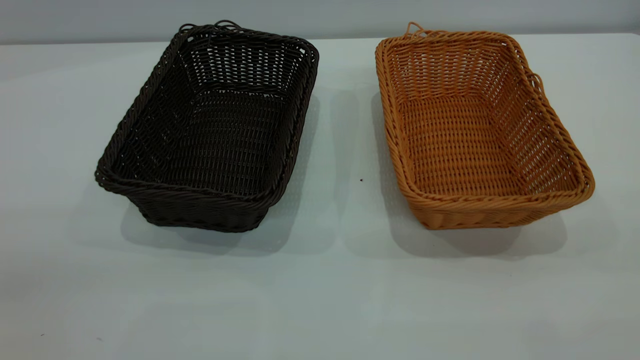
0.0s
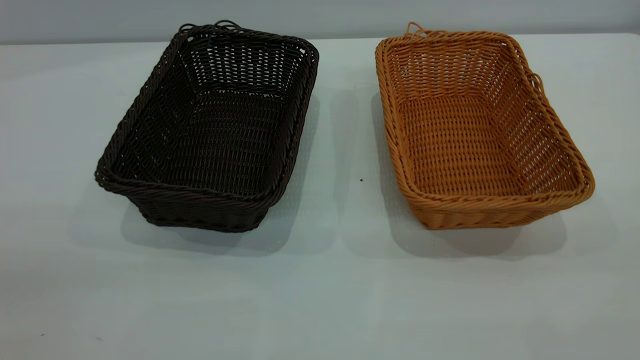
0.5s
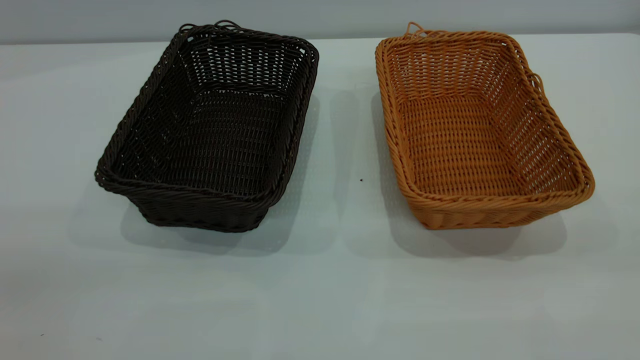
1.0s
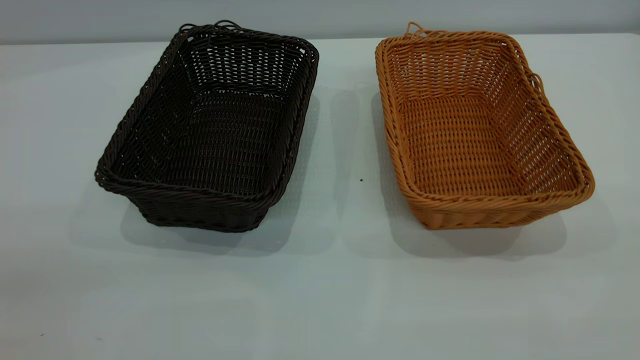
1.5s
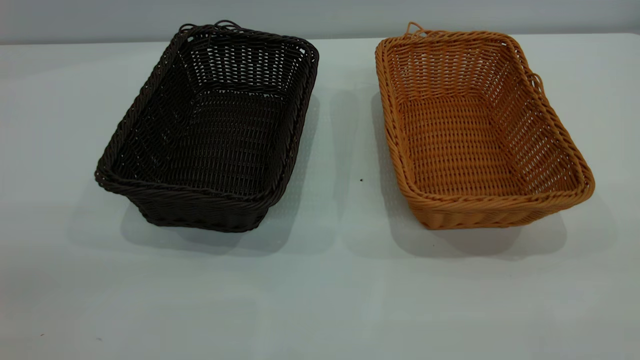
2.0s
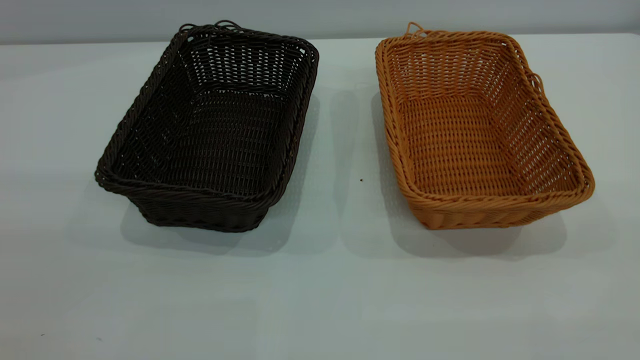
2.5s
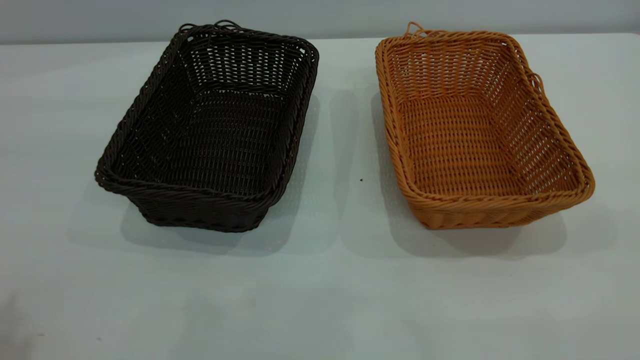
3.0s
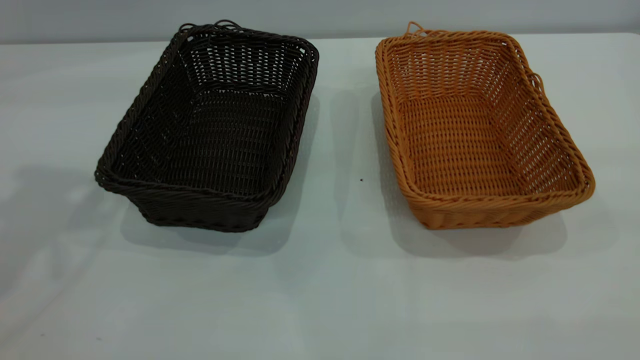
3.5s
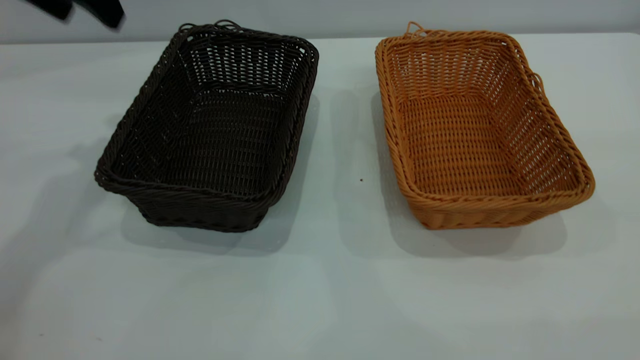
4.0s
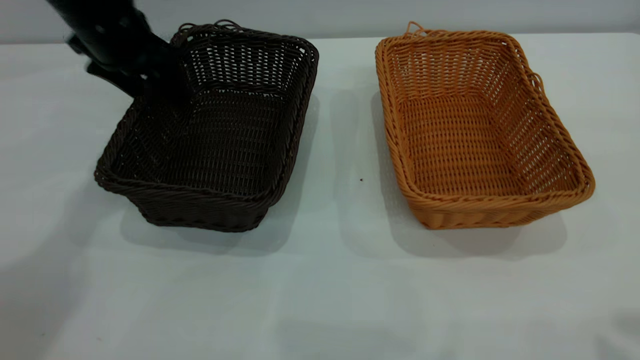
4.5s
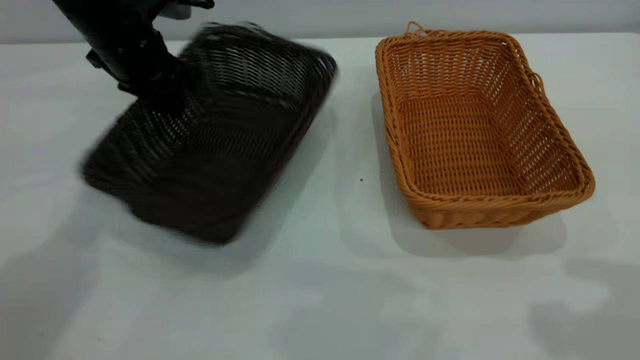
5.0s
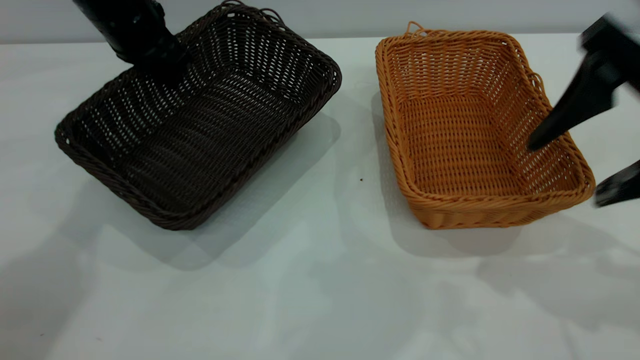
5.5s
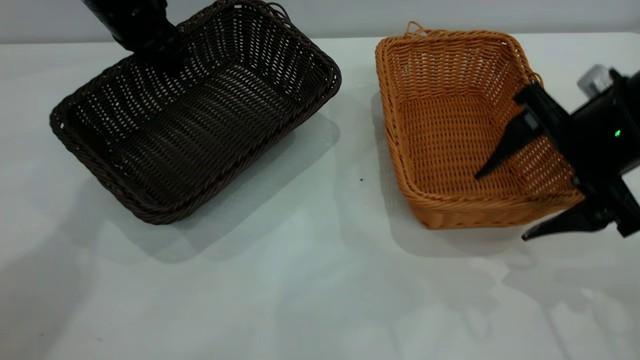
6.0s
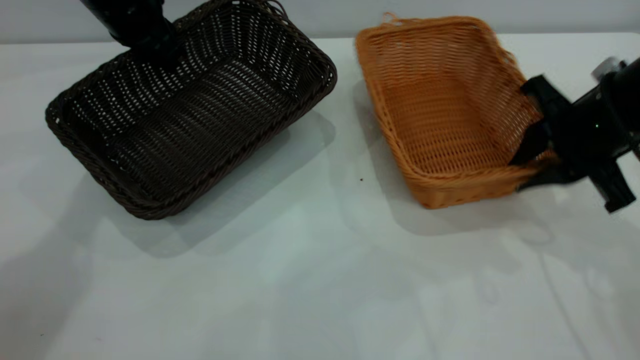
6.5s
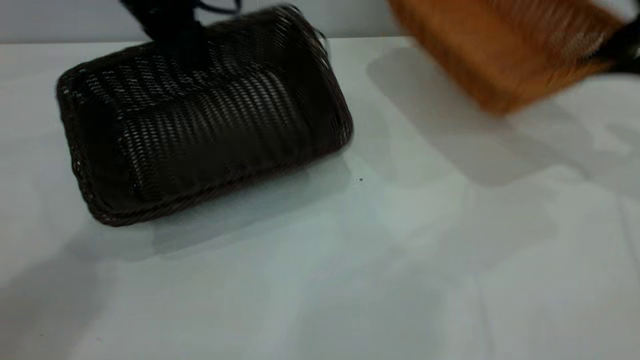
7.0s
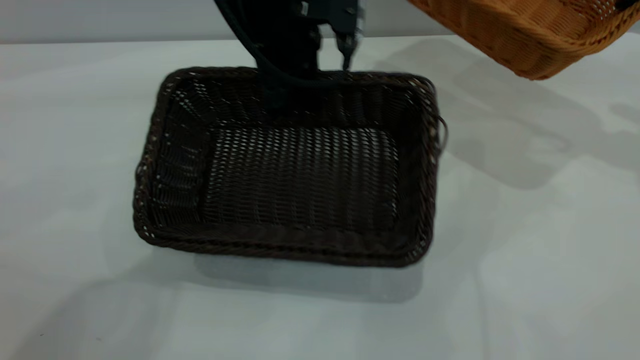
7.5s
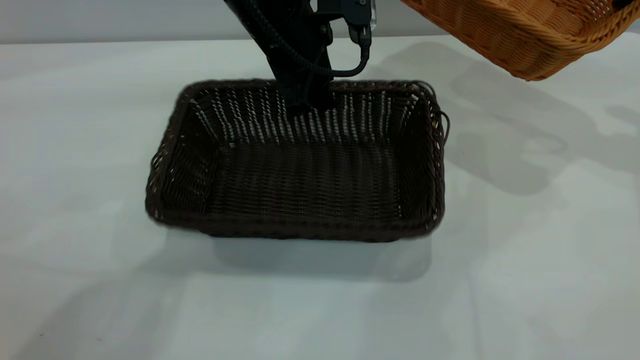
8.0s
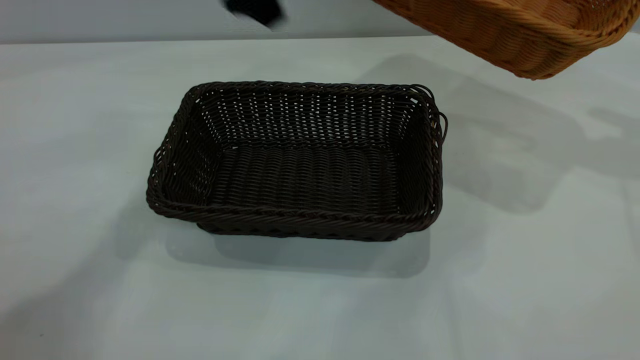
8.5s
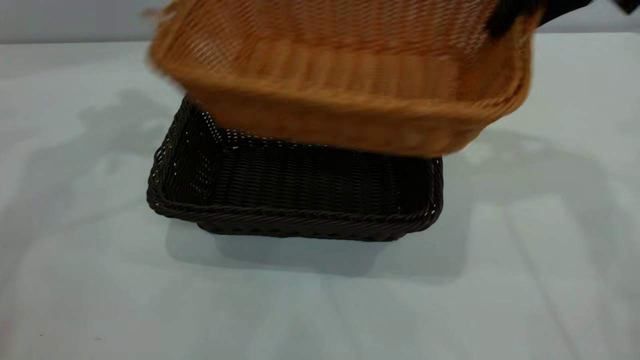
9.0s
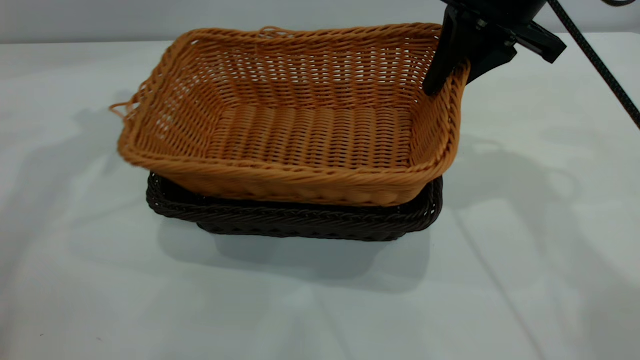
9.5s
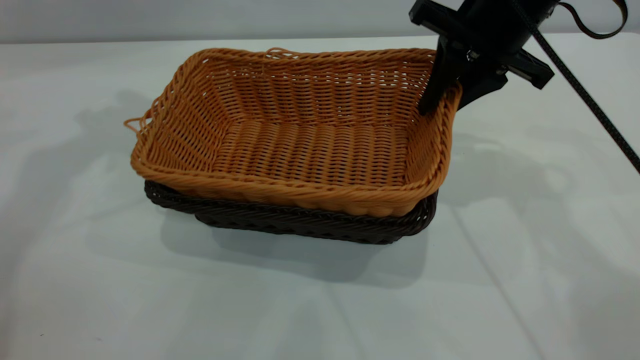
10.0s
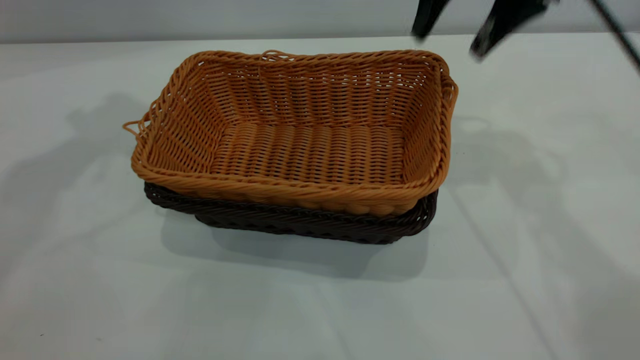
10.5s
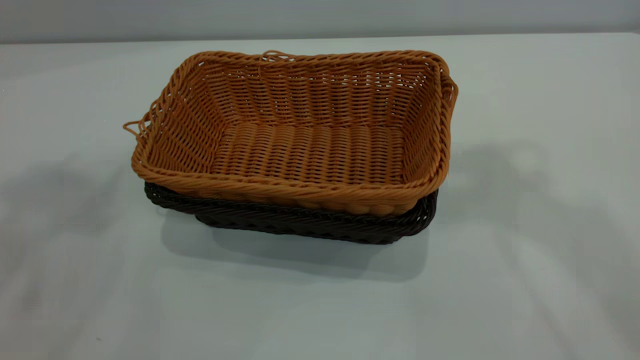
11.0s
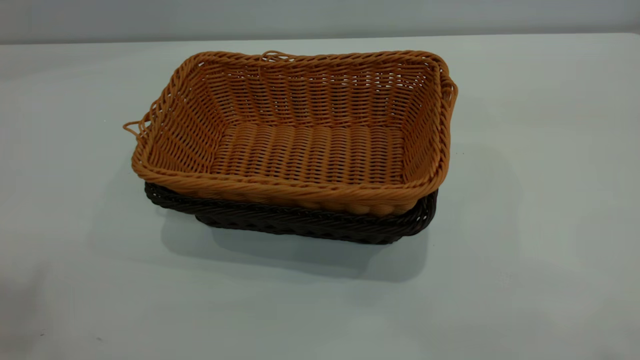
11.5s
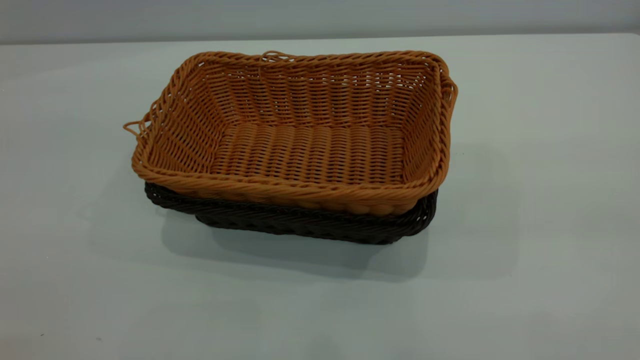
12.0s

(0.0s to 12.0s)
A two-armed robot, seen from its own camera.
Task of the whole recording: the left gripper grasp the black basket and place it in the center of the table, the right gripper grasp the brown basket and place it inside the black one.
Step, 0.0s - 6.5s: Pick up the light basket with the right gripper.
Step, 7.0s - 8.0s: Move the dark basket to the center of view.
Step, 8.5s - 10.5s: Place the light basket on the dark basket.
0.0s - 2.0s: Both grippers stay about where they are.
2.0s - 4.0s: The left gripper goes approximately 40 cm forward.
4.0s - 6.0s: The left gripper heads downward and forward, covering about 10 cm, and closes up; the right gripper heads downward and forward, covering about 30 cm.
6.0s - 8.0s: The right gripper goes some 20 cm to the right, forward and upward, and closes, while the left gripper goes approximately 15 cm to the right, and opens.
8.0s - 10.0s: The left gripper moves to the left and upward, approximately 25 cm, and opens up. Meanwhile the right gripper goes approximately 20 cm to the left.
10.0s - 12.0s: The grippers both shift backward and upward by roughly 40 cm. The right gripper opens.

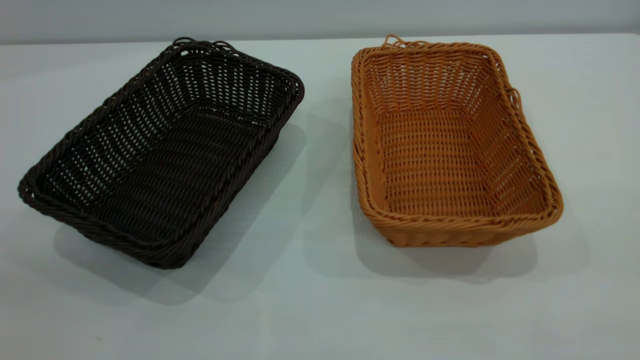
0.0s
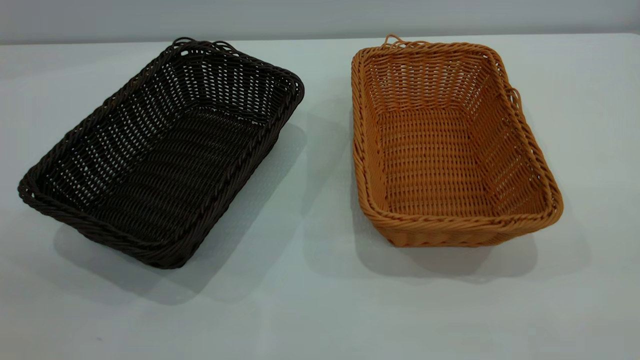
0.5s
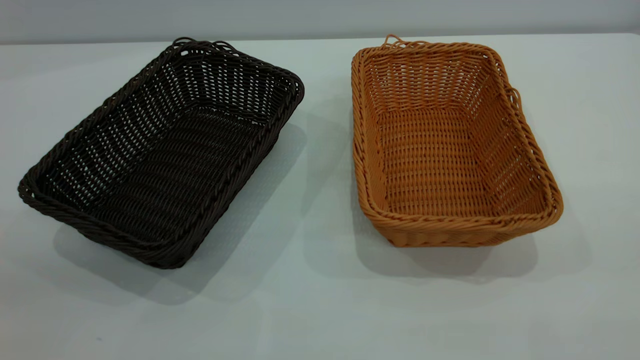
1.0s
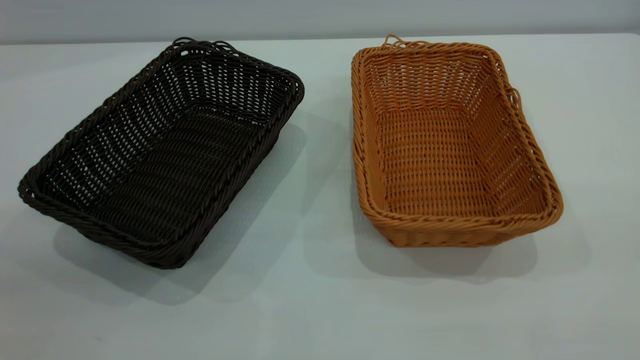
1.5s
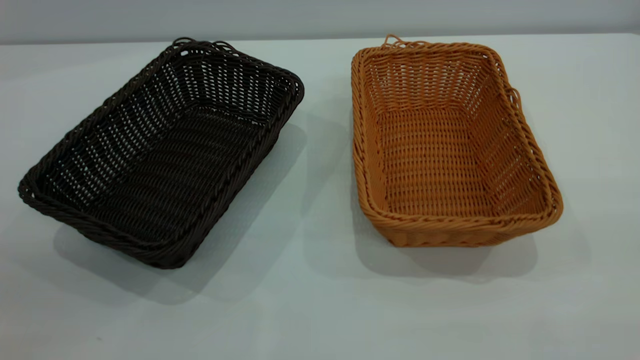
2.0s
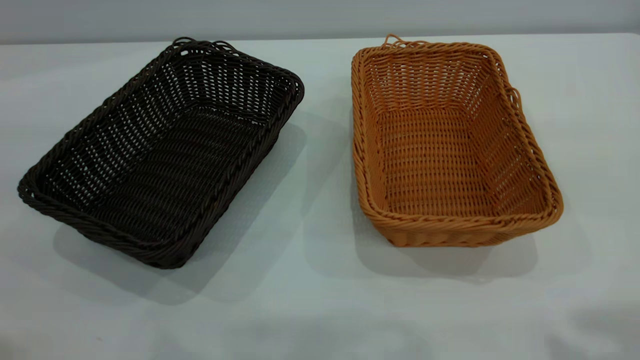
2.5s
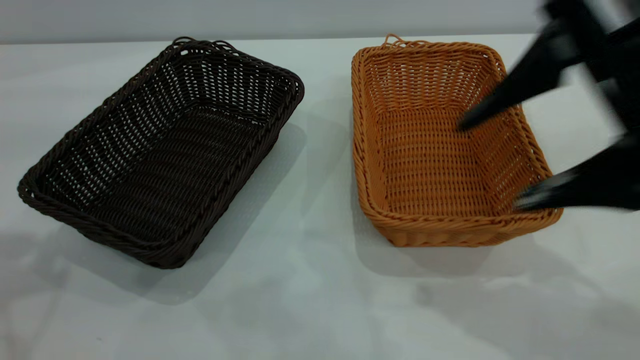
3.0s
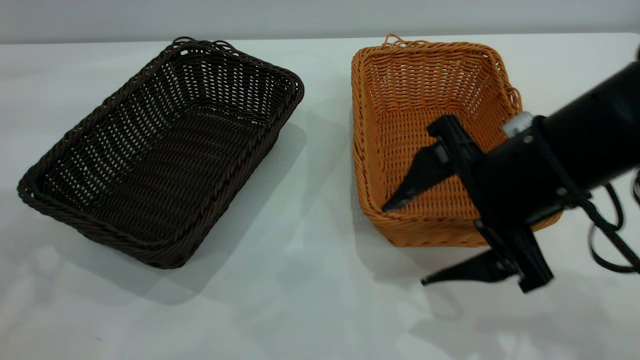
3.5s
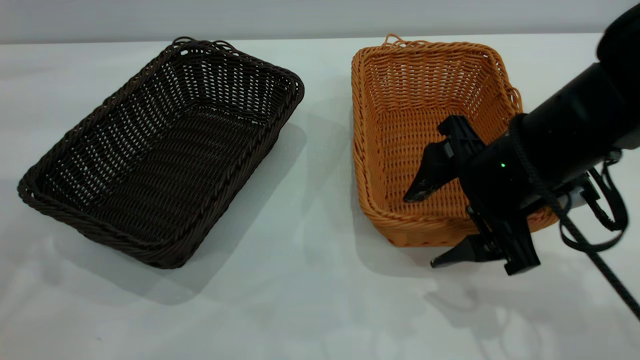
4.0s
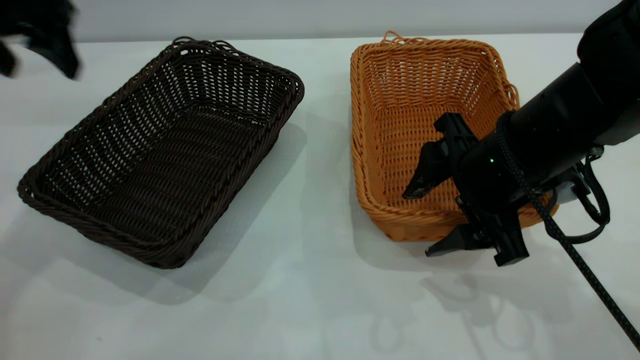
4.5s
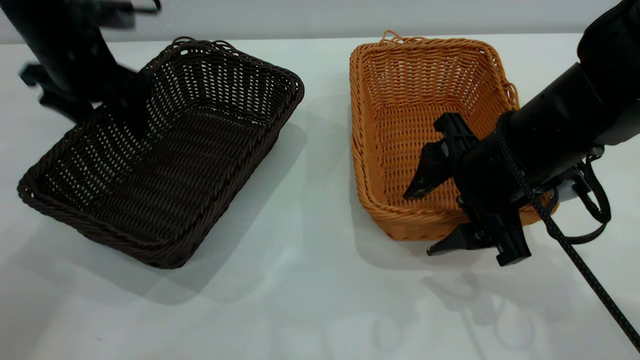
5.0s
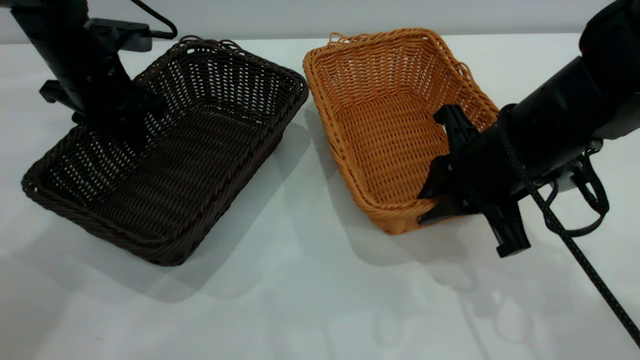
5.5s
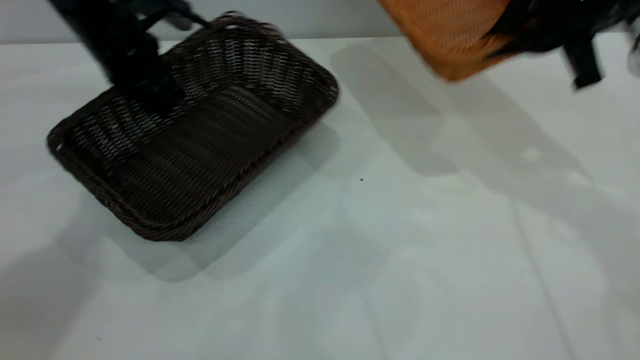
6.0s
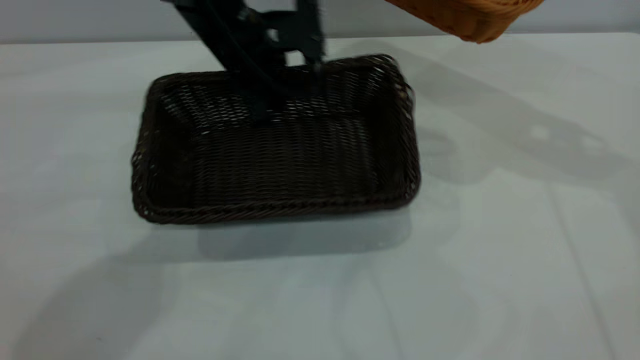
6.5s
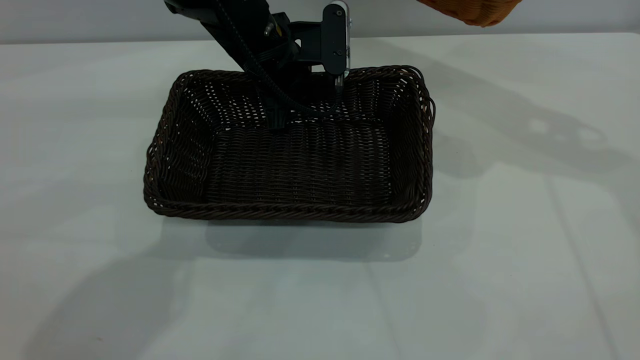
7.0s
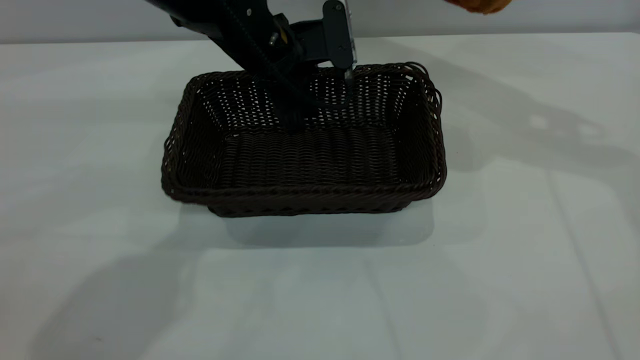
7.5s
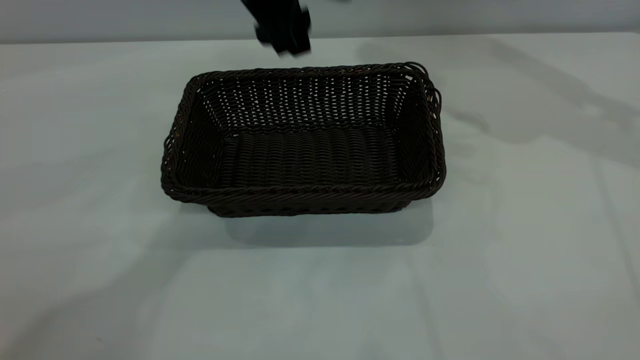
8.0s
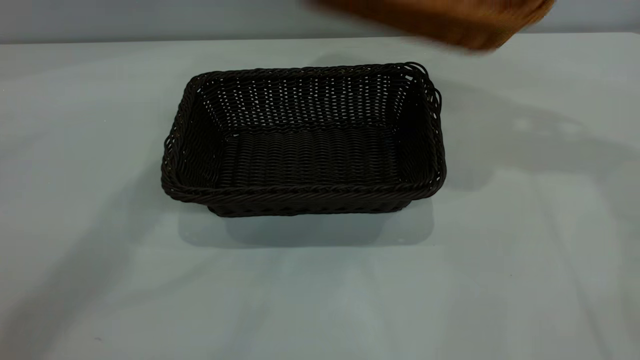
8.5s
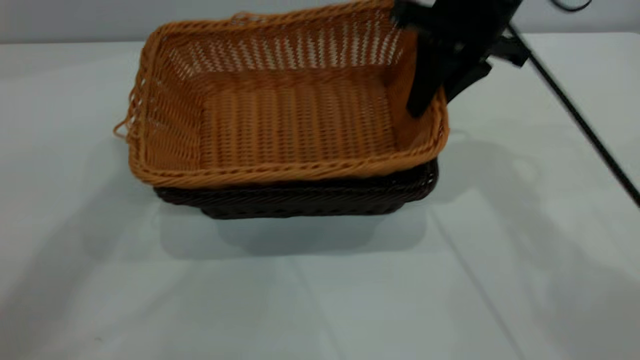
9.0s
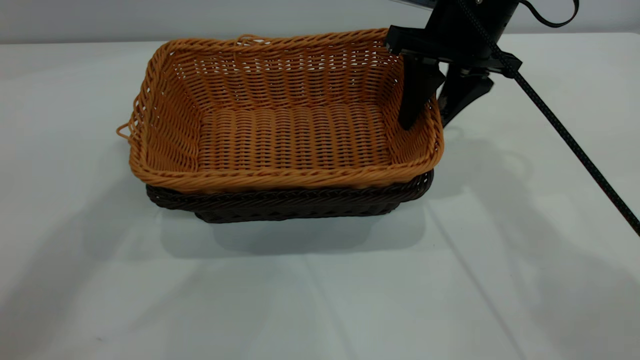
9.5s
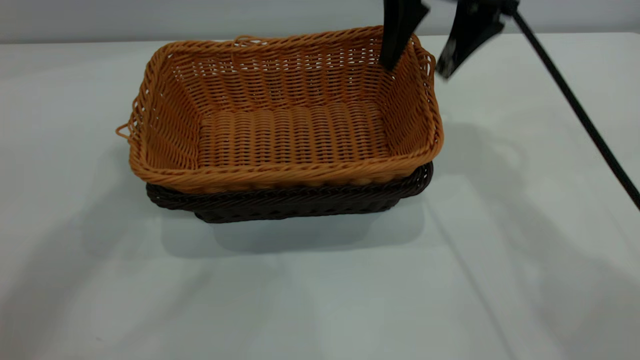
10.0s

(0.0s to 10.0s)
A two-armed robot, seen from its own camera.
Task of the whole recording: the left gripper grasp the black basket and place it in the center of the table, the right gripper grasp the brown basket and place it inside the black one.
Step, 0.0s - 5.5s: Pick up the light basket with the right gripper.
Step, 6.0s - 7.5s: Move the dark basket to the center of view.
2.0s - 4.0s: The right gripper is displaced forward, downward and to the left by approximately 40 cm; the left gripper travels forward by about 30 cm, and opens its fingers.
4.0s - 6.0s: The left gripper travels downward, forward and to the right by approximately 25 cm, and closes up; the right gripper goes roughly 15 cm forward, upward and to the right, and closes up.
6.0s - 8.0s: The left gripper goes some 20 cm to the right and upward, and opens its fingers, while the right gripper moves to the right, upward and forward, approximately 15 cm.
8.0s - 10.0s: The left gripper goes about 30 cm upward and to the left; the right gripper moves to the left, some 20 cm, and opens.
